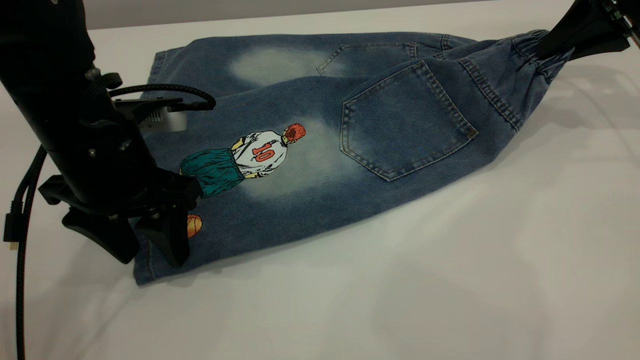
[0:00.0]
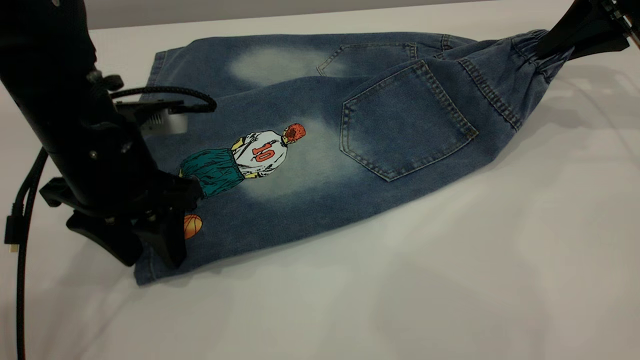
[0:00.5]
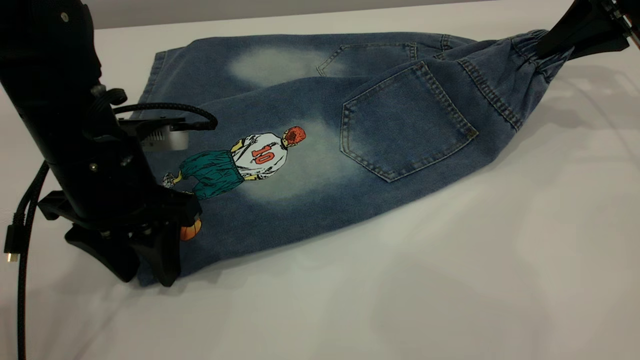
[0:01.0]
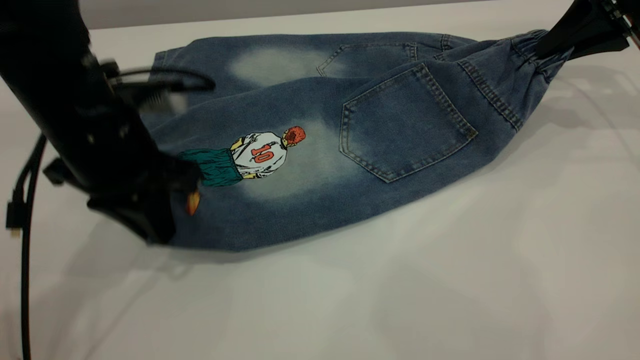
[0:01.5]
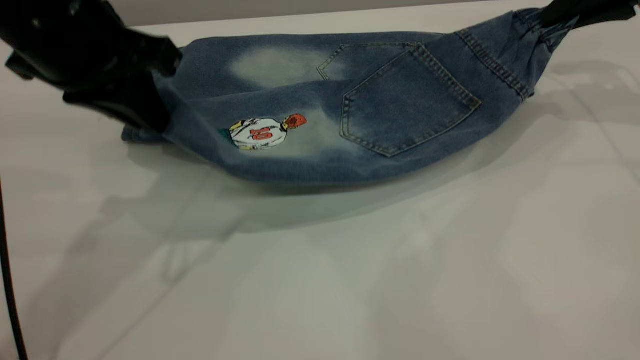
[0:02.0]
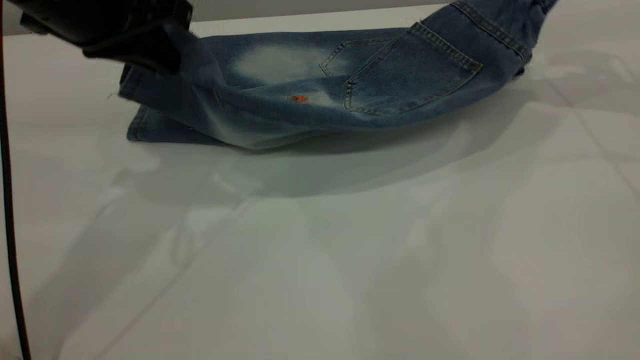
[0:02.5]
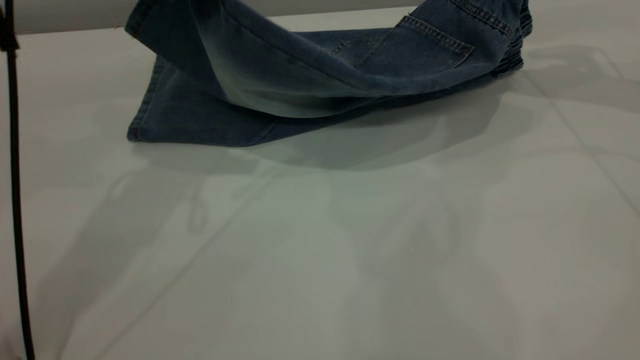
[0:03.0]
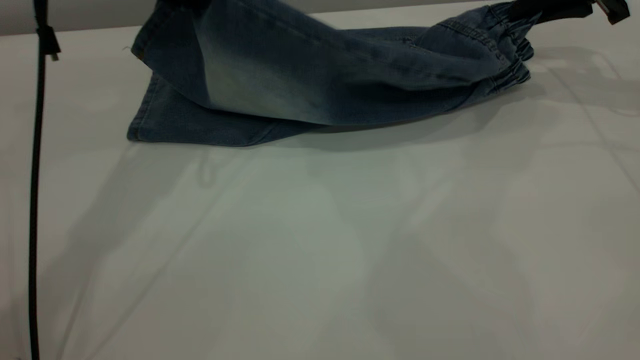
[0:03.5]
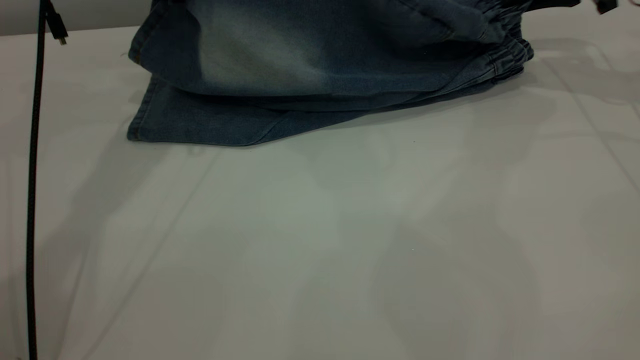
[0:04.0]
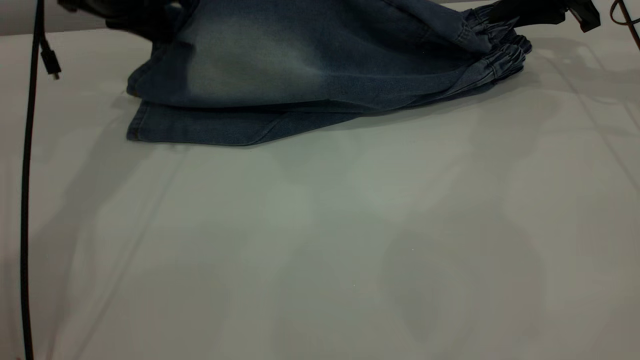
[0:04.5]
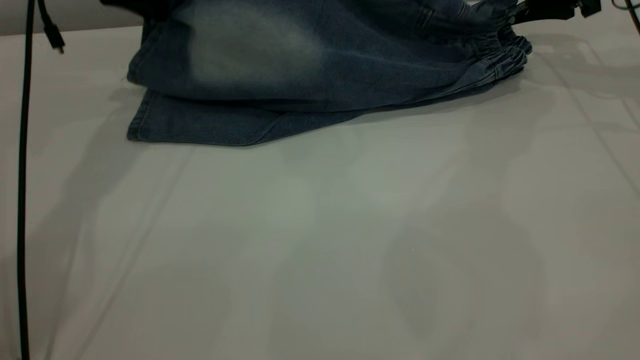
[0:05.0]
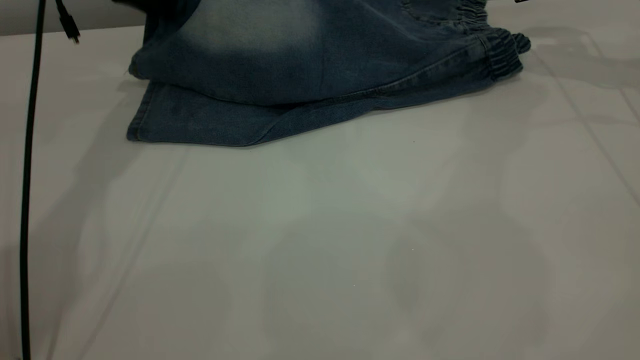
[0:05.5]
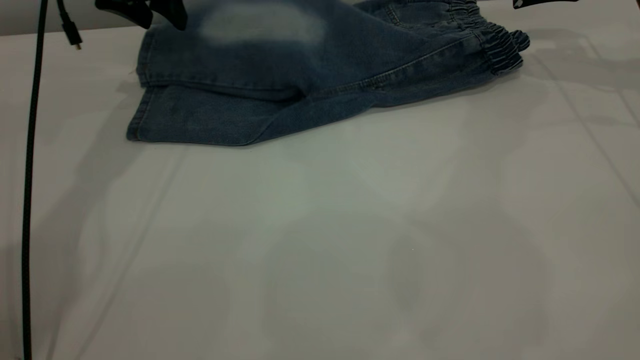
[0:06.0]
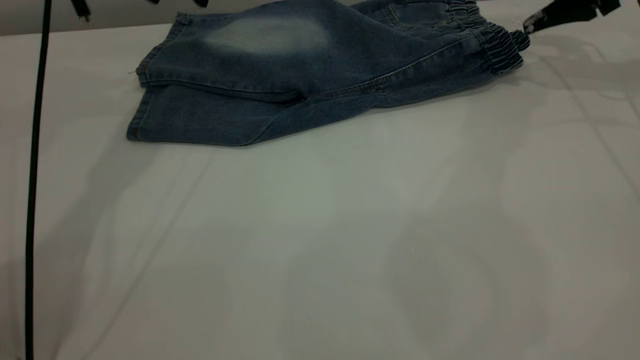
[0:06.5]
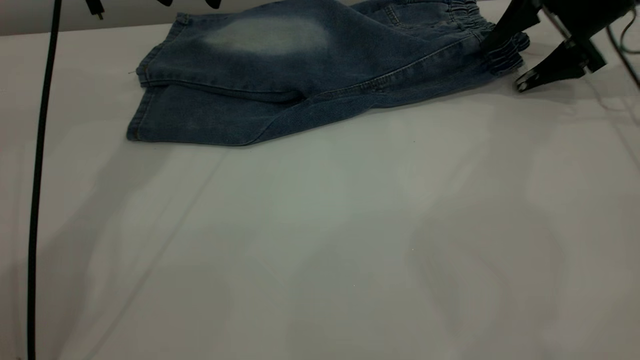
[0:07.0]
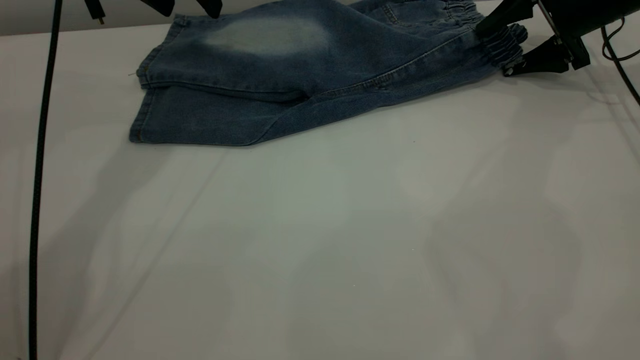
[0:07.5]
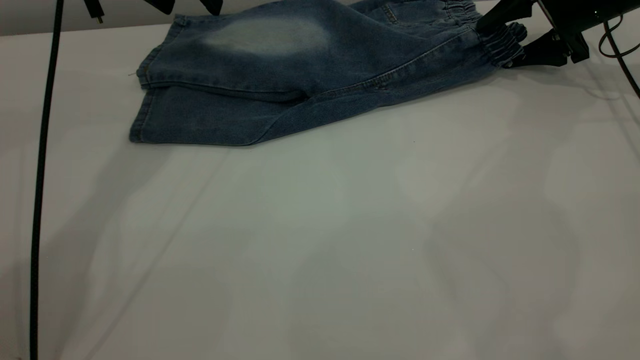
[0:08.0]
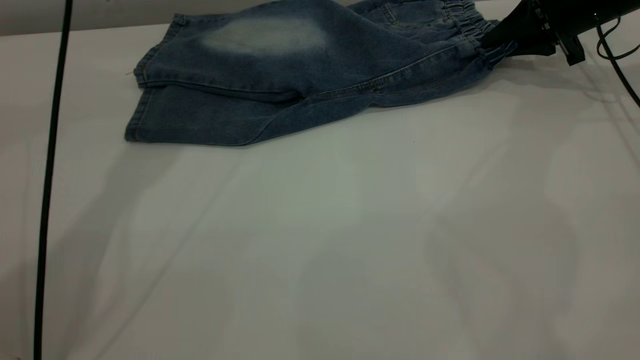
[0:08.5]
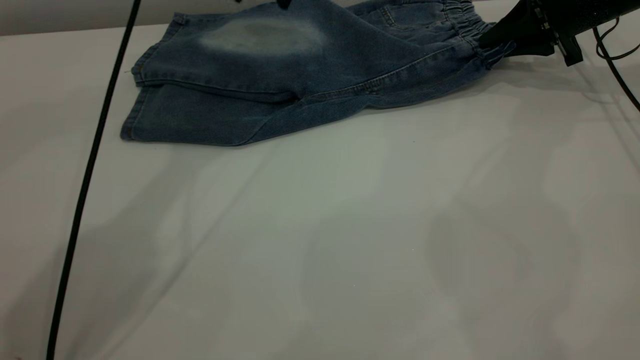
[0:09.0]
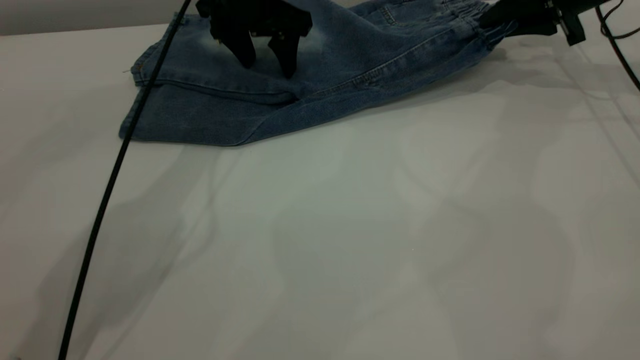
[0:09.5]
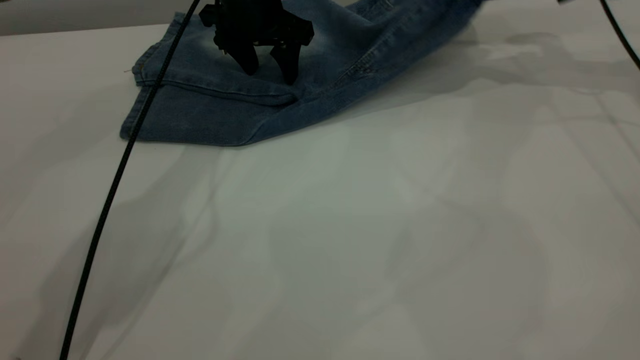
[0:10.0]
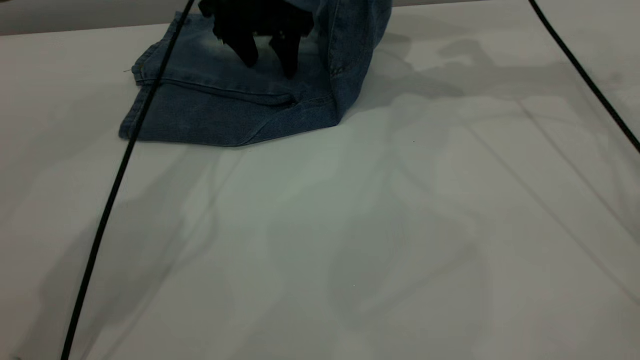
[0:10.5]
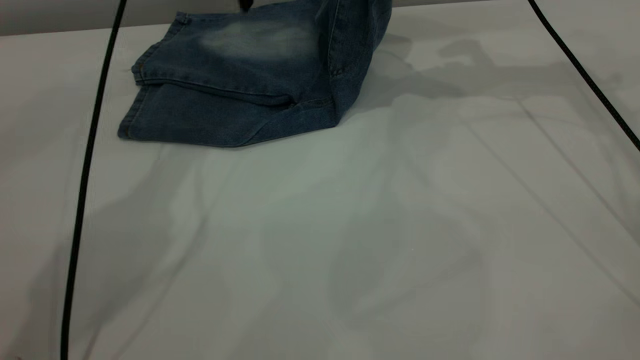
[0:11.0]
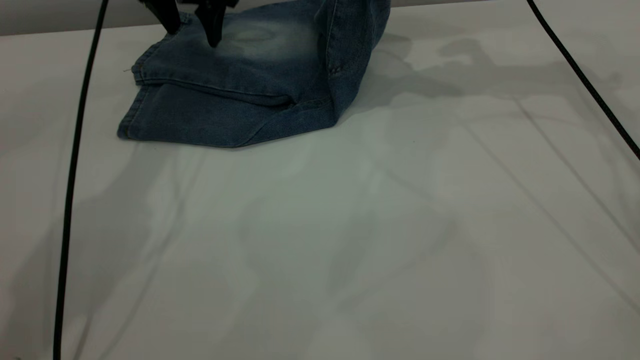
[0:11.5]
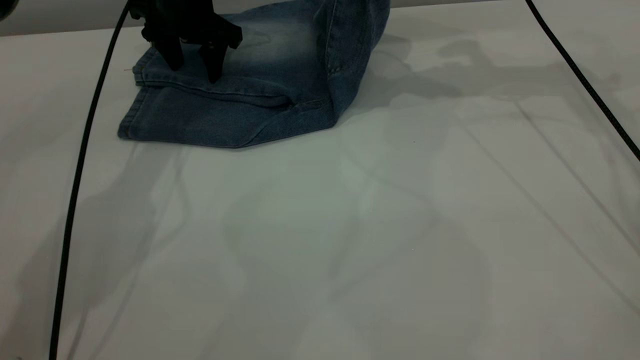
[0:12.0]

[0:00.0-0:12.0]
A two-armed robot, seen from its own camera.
Step, 0:00.0 to 0:06.0: Fold the bottom of the pants upward.
0:00.0 to 0:02.0: The left gripper heads upward, covering some 10 cm, and closes its fingers.
0:02.0 to 0:04.0: The right gripper moves forward, roughly 5 cm, while the left gripper moves forward, approximately 15 cm.
0:04.0 to 0:06.0: The left gripper shifts by approximately 5 cm, and opens. The right gripper opens up.
0:06.0 to 0:08.0: The right gripper travels downward by approximately 10 cm. The left gripper ends up some 5 cm from where it was.
0:08.0 to 0:10.0: The right gripper shifts approximately 10 cm upward, and closes. The left gripper heads downward and to the right, covering approximately 15 cm.
0:10.0 to 0:12.0: Both grippers travel together to the left, some 10 cm. The left gripper goes upward and returns, about 5 cm each way.

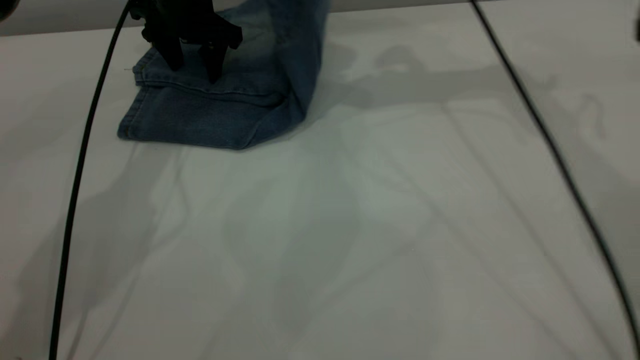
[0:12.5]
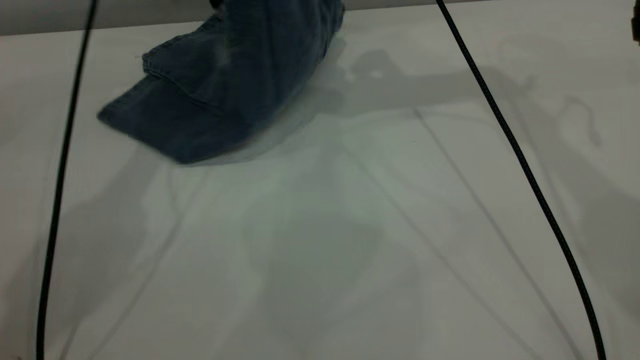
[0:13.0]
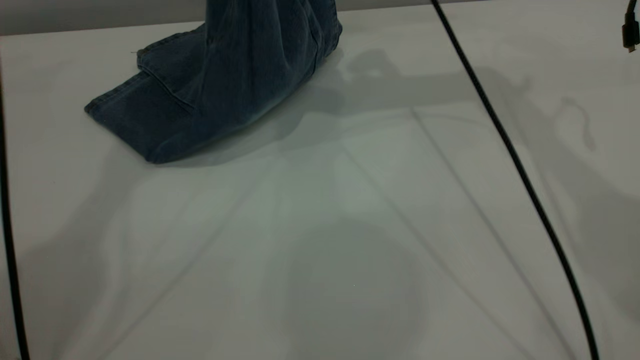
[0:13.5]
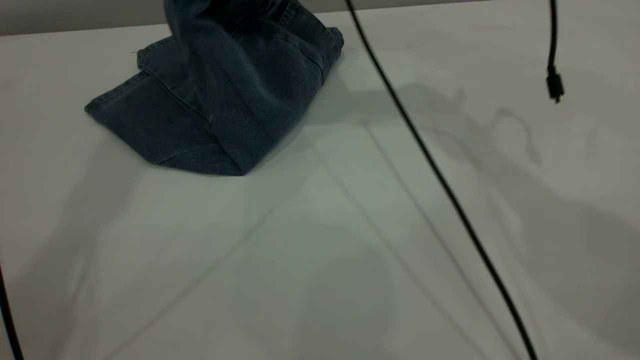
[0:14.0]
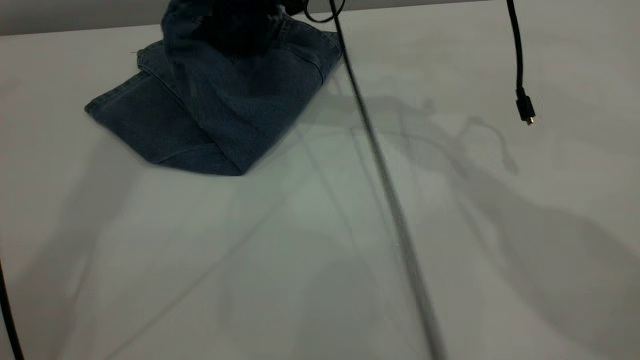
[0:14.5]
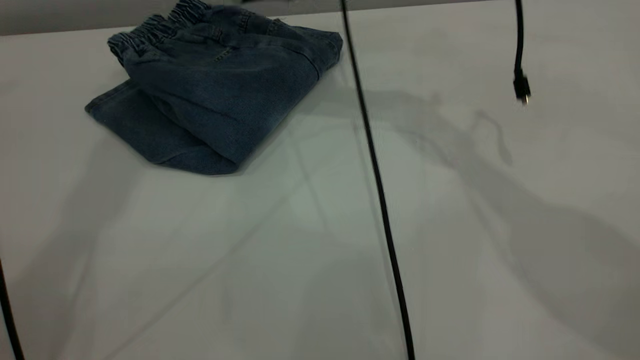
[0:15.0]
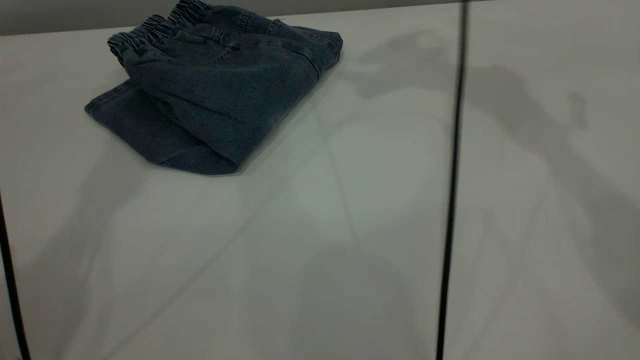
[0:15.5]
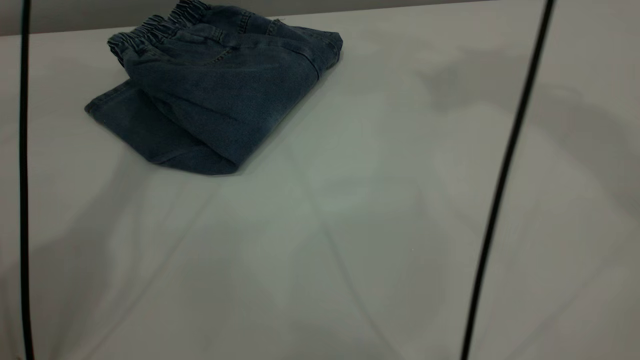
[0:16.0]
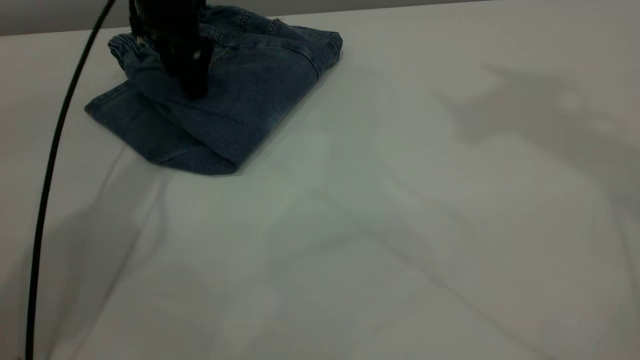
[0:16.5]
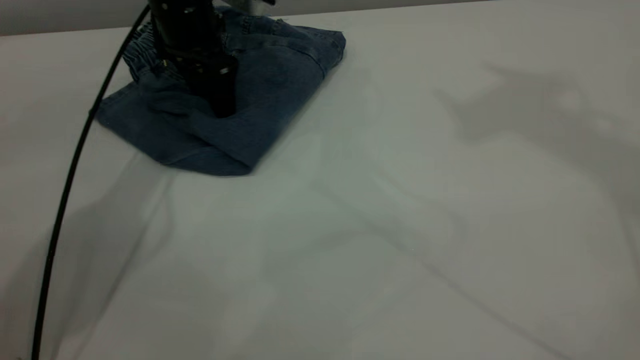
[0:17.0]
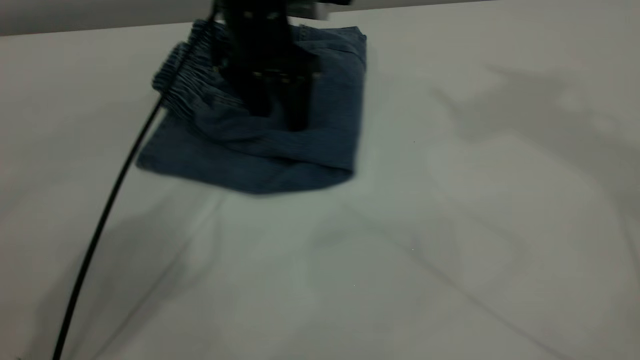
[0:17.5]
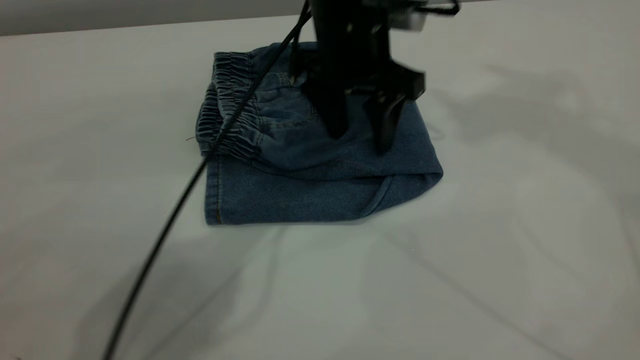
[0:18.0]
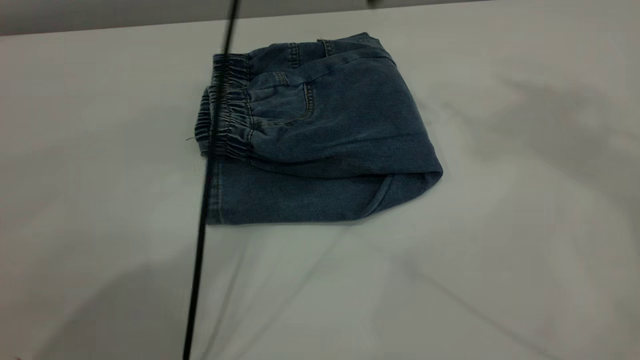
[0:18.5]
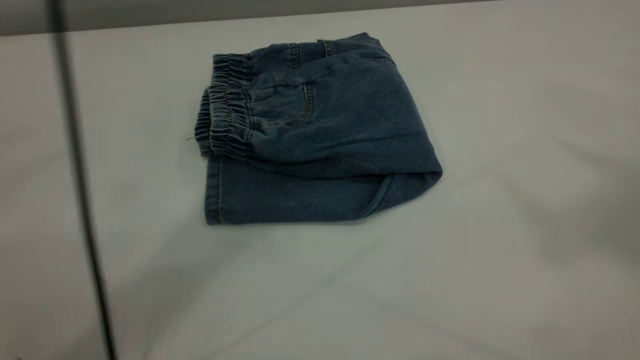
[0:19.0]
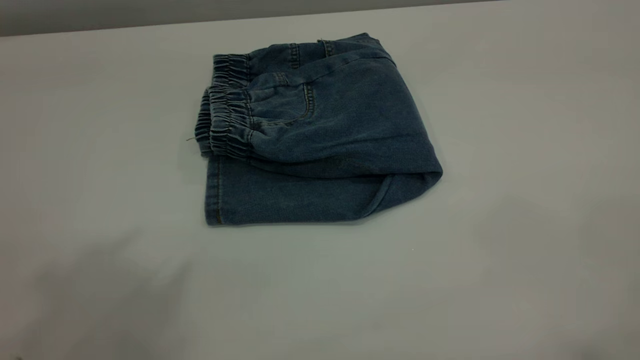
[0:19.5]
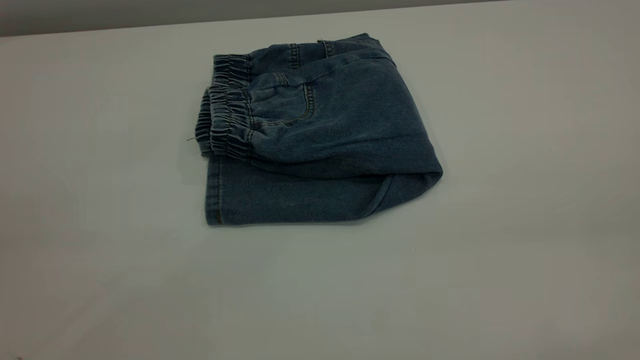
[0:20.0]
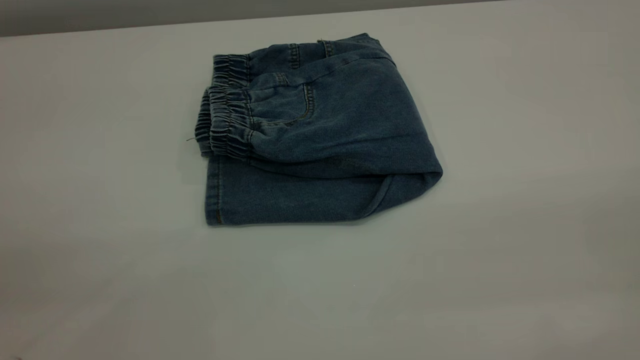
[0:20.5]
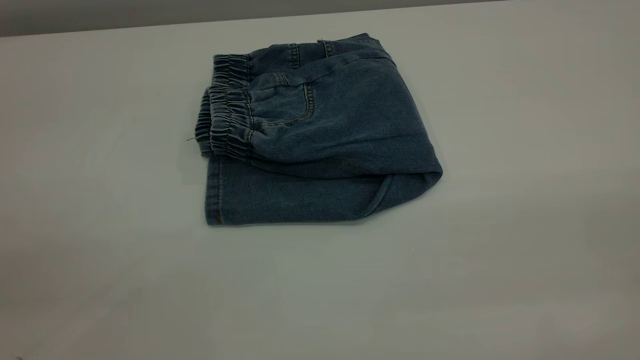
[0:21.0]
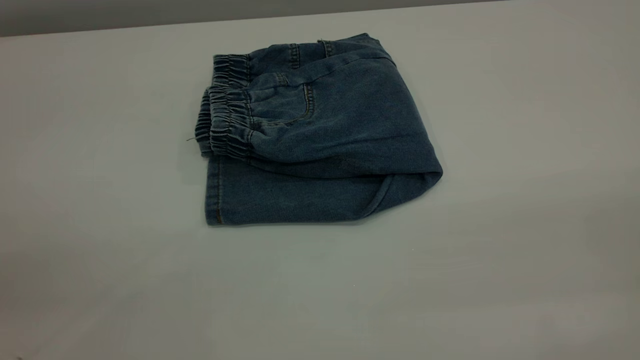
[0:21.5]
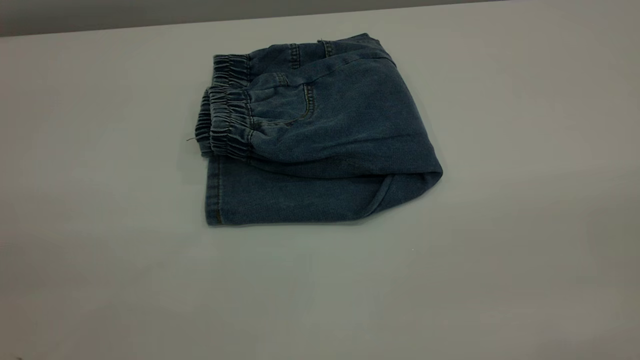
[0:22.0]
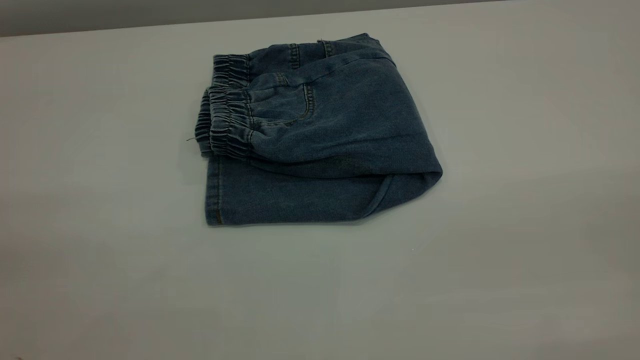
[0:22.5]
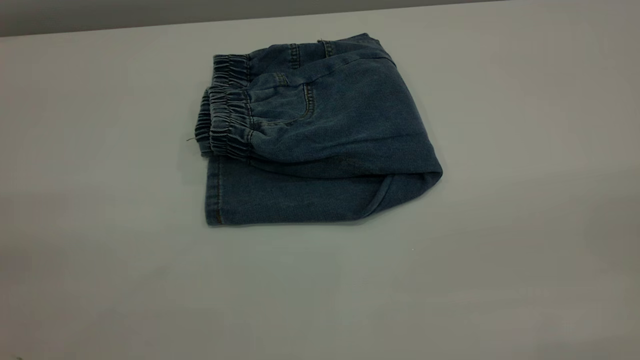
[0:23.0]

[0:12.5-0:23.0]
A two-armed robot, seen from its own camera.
Step, 0:12.5 to 0:15.0: Fold your pants from right to left.
0:12.5 to 0:14.5: The right gripper shifts some 15 cm to the left and downward, and opens; the left gripper travels upward by roughly 40 cm.
0:14.5 to 0:16.5: The right gripper heads upward and to the right, covering approximately 40 cm, and opens its fingers. Meanwhile the left gripper goes some 35 cm downward.
0:16.5 to 0:19.0: The left gripper is displaced upward and backward by some 40 cm. Meanwhile the right gripper travels backward by roughly 15 cm.
0:19.0 to 0:21.0: The left gripper shifts about 40 cm backward, to the left and downward.
